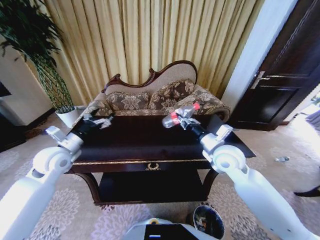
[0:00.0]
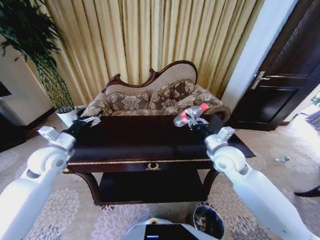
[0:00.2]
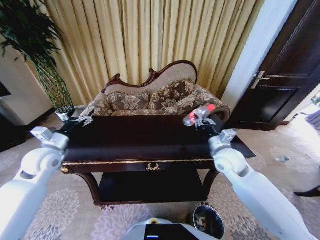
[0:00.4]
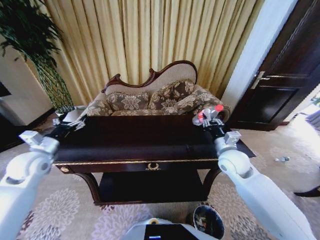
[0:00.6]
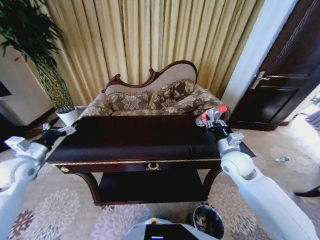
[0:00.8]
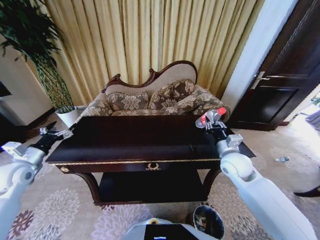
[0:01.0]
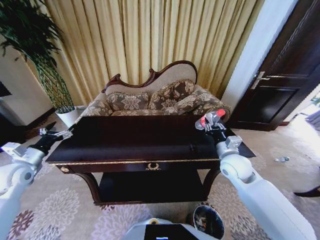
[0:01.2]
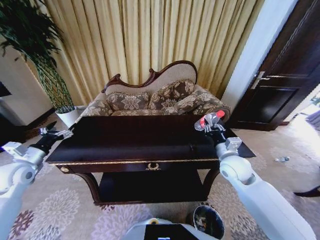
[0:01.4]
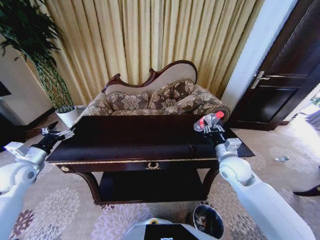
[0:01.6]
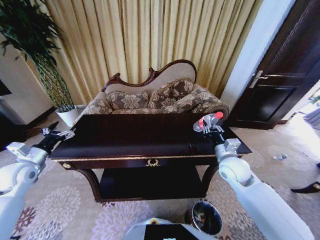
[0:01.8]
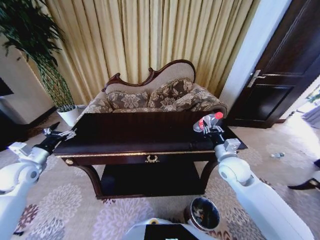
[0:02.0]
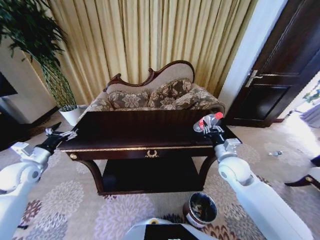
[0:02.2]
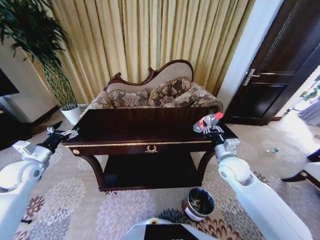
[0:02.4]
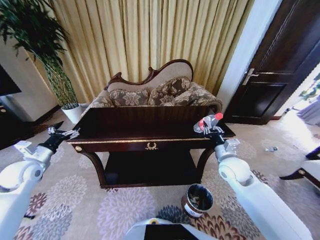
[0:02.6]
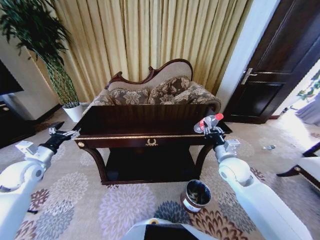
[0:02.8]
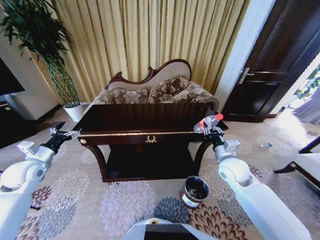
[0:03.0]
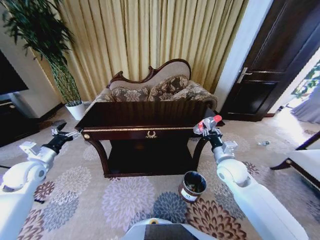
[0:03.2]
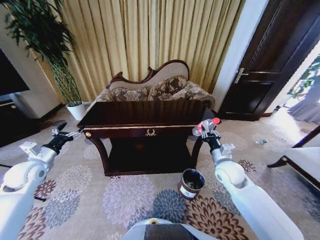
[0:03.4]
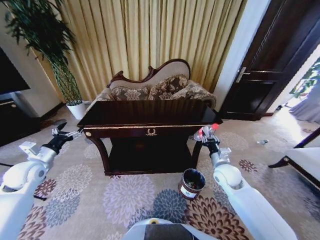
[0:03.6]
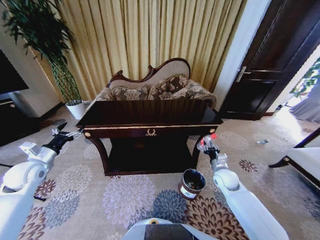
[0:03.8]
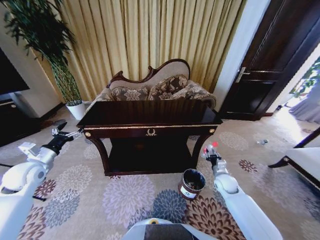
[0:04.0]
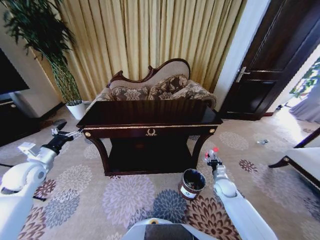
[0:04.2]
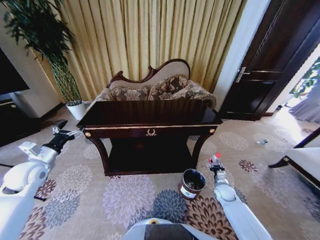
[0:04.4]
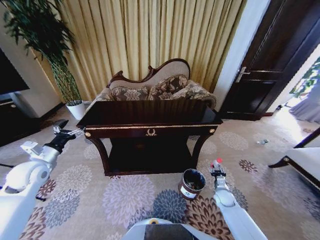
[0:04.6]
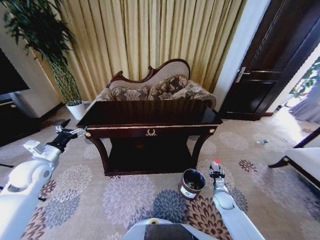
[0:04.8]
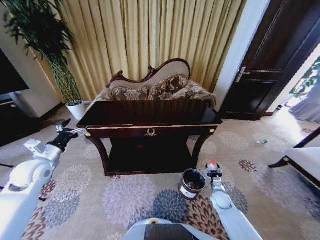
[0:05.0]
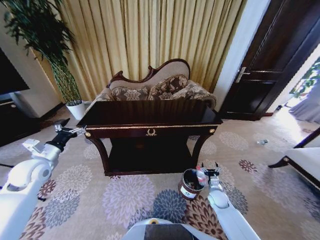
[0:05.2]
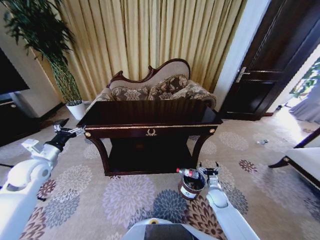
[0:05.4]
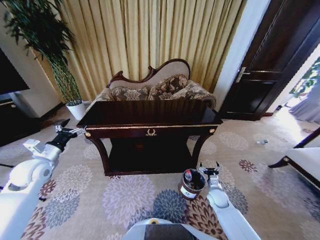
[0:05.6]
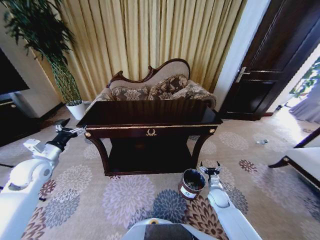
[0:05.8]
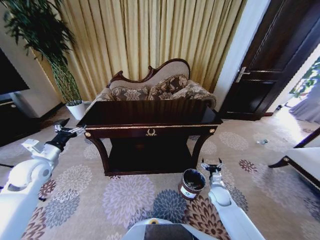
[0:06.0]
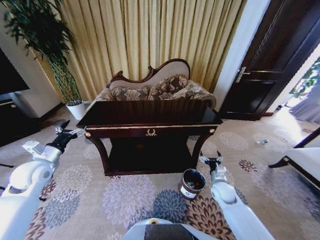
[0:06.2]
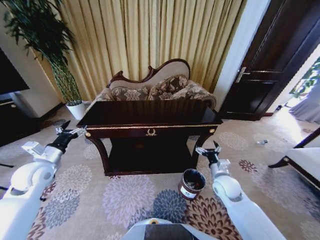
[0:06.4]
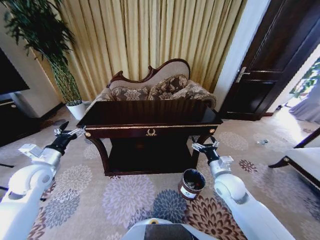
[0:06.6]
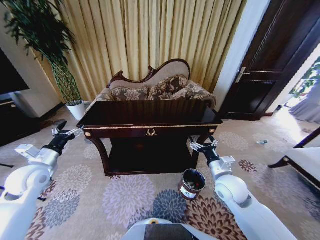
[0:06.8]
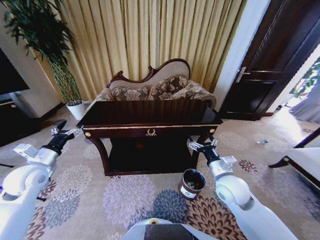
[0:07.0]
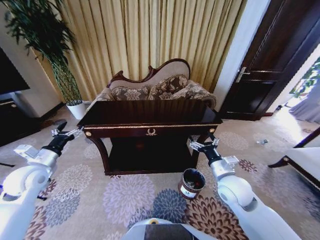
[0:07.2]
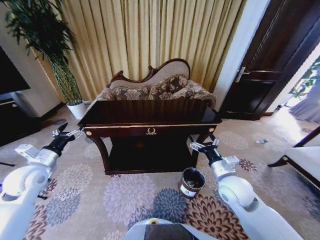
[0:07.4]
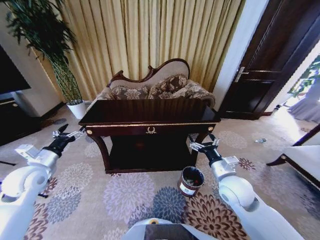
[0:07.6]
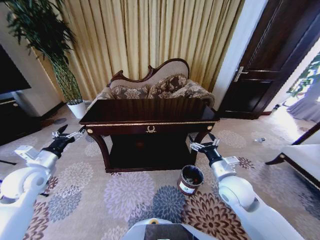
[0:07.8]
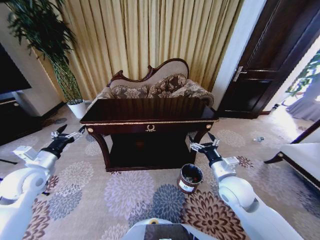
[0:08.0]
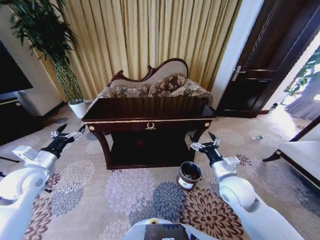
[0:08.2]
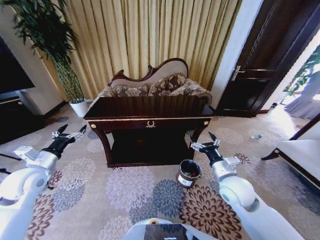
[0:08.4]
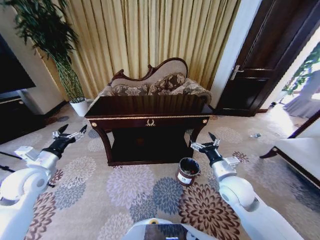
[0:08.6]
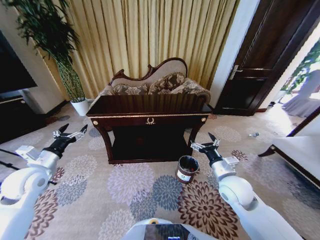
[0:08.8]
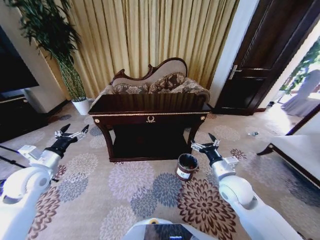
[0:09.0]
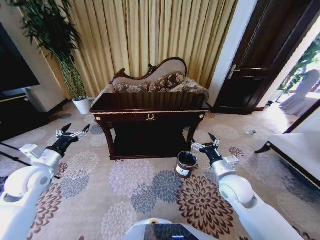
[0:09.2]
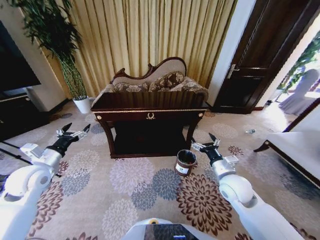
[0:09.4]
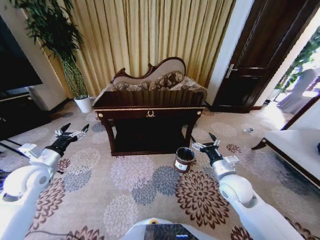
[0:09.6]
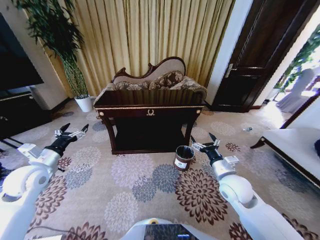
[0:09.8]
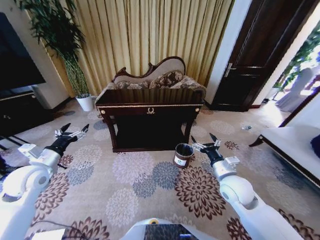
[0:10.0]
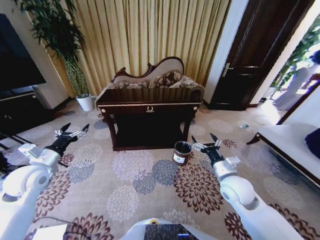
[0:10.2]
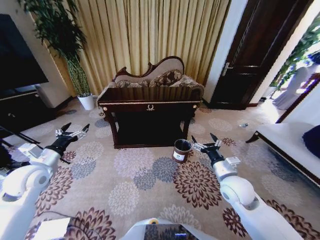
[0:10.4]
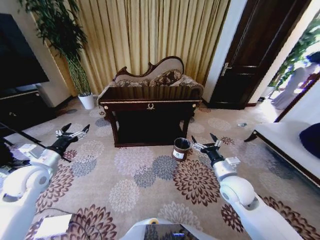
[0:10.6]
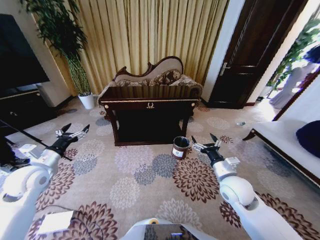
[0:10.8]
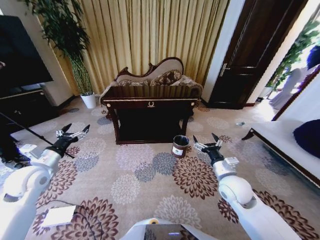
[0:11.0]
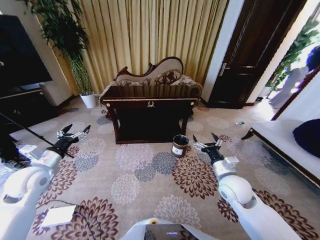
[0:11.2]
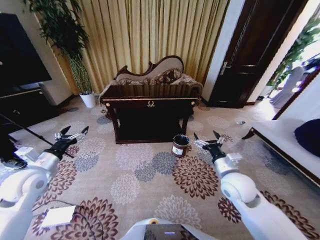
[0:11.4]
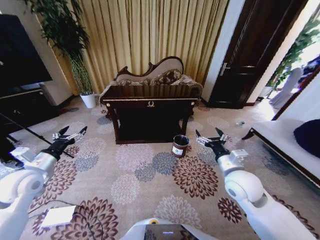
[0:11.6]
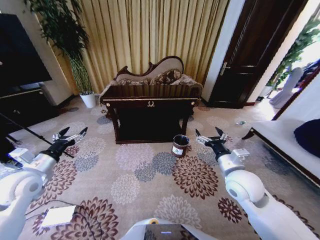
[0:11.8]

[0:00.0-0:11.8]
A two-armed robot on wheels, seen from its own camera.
Task of the whole recording: Move to the front of the table and place the trash on the table into the trash bin.
0:00.0 to 0:01.4: The left gripper heads to the left, covering some 15 cm. Meanwhile the right gripper travels downward by approximately 5 cm.
0:03.0 to 0:04.4: The right gripper moves downward, about 25 cm.
0:04.4 to 0:06.0: The right gripper shifts by about 5 cm, and opens.
0:06.0 to 0:07.4: The right gripper moves upward, some 25 cm.

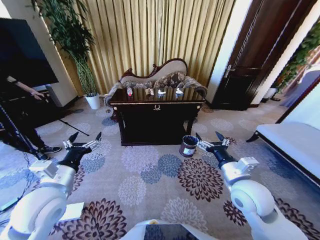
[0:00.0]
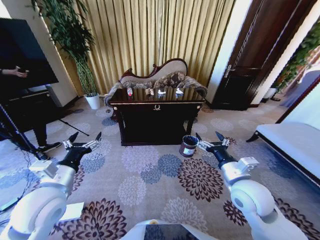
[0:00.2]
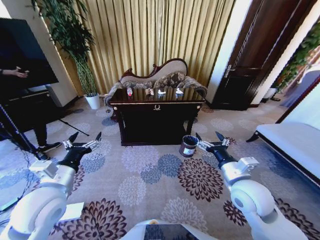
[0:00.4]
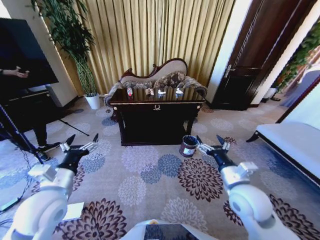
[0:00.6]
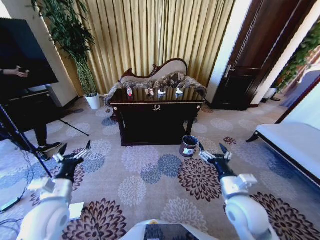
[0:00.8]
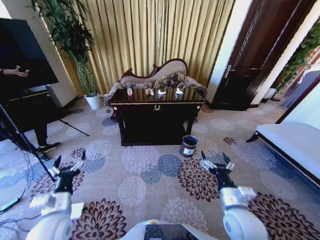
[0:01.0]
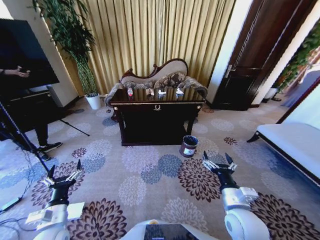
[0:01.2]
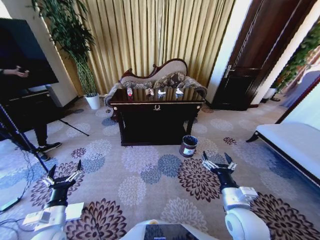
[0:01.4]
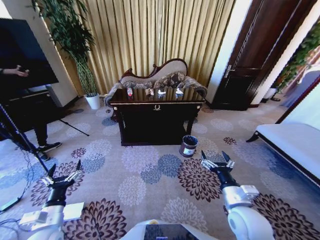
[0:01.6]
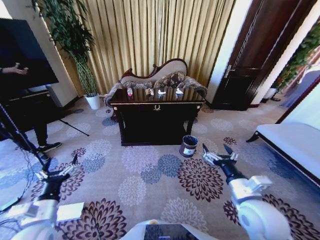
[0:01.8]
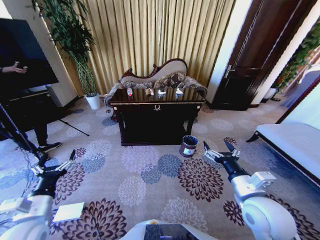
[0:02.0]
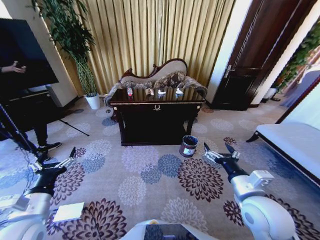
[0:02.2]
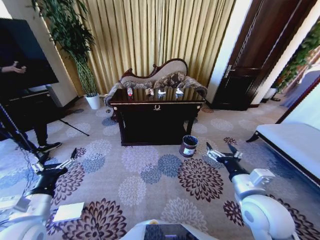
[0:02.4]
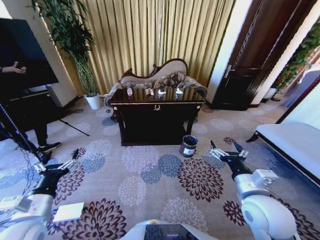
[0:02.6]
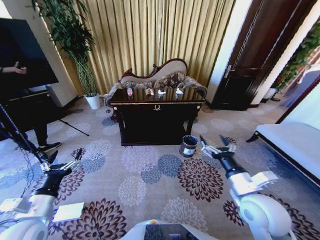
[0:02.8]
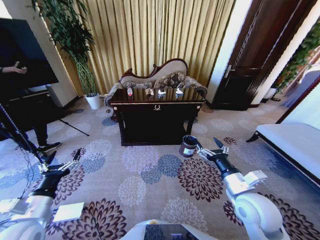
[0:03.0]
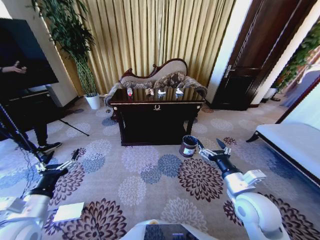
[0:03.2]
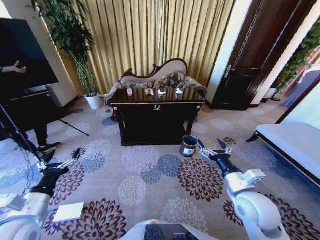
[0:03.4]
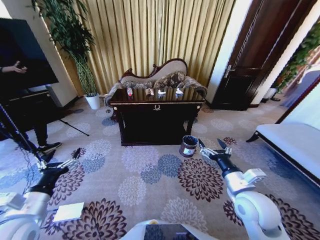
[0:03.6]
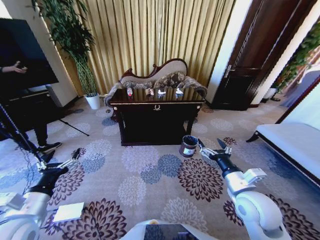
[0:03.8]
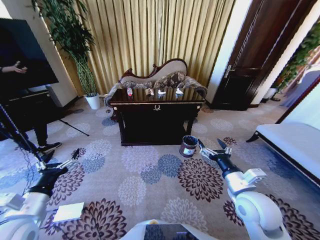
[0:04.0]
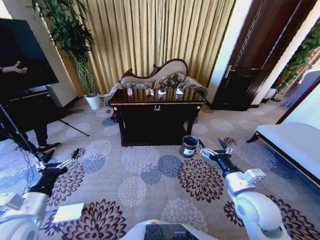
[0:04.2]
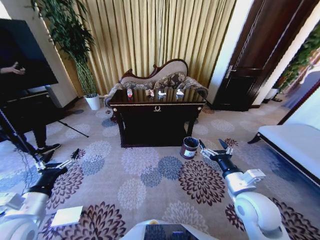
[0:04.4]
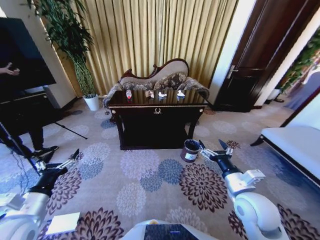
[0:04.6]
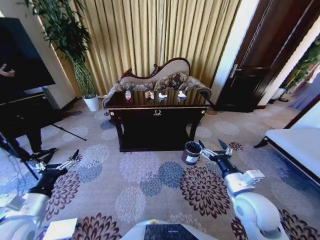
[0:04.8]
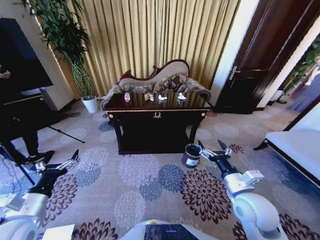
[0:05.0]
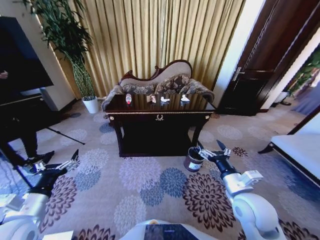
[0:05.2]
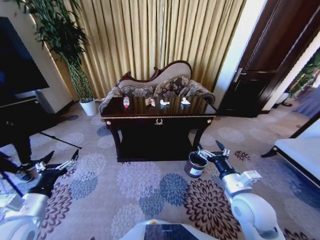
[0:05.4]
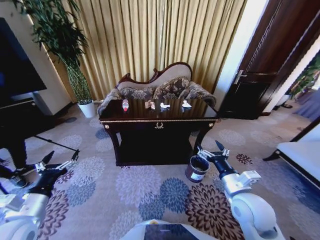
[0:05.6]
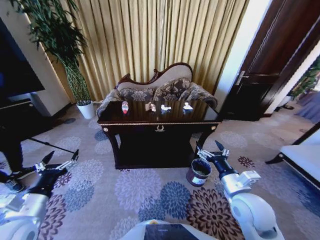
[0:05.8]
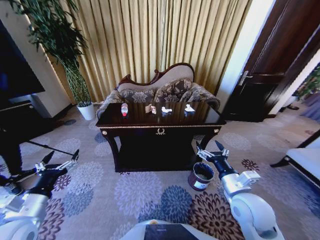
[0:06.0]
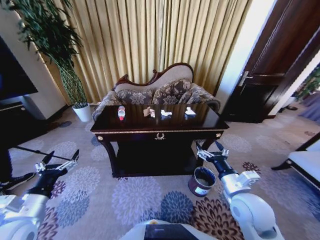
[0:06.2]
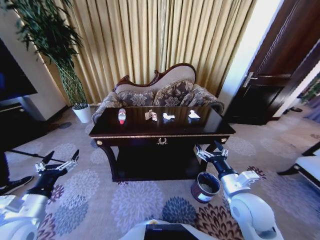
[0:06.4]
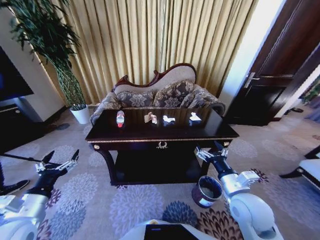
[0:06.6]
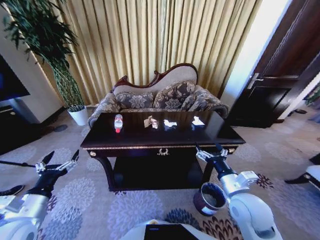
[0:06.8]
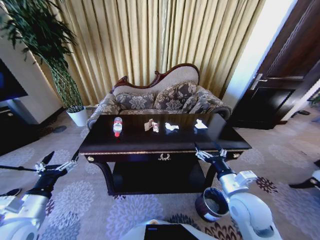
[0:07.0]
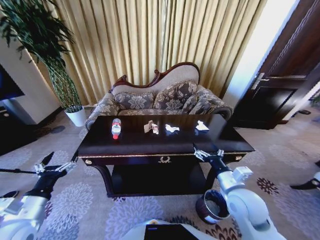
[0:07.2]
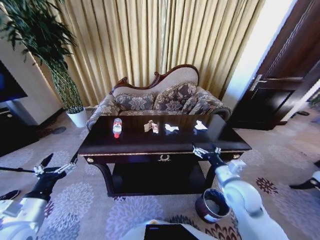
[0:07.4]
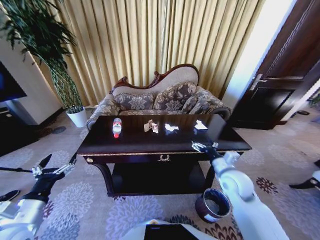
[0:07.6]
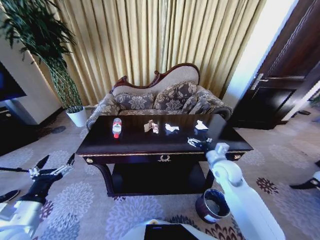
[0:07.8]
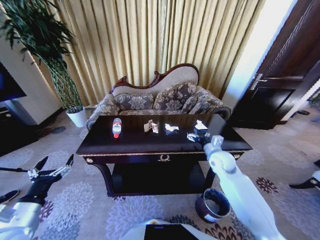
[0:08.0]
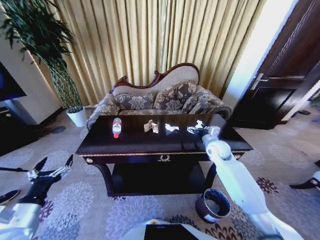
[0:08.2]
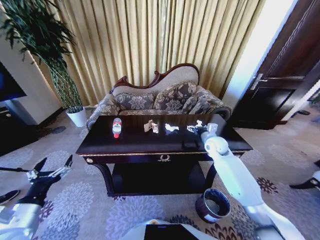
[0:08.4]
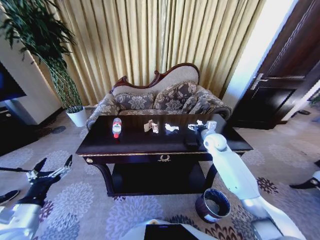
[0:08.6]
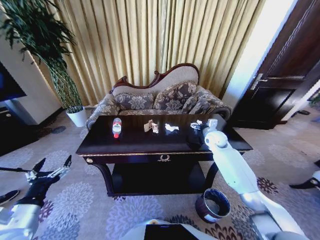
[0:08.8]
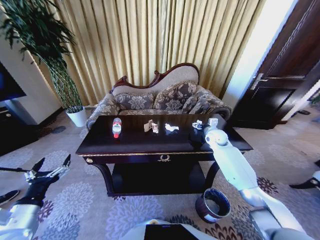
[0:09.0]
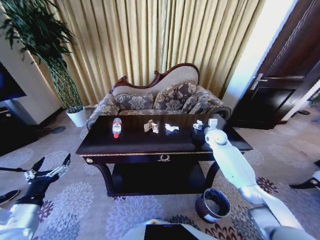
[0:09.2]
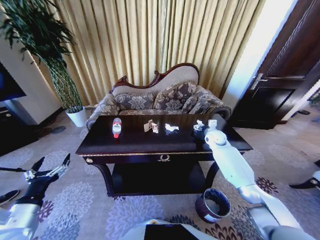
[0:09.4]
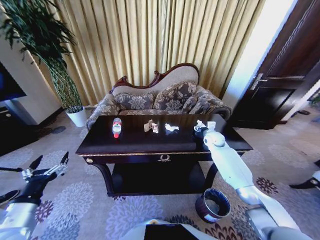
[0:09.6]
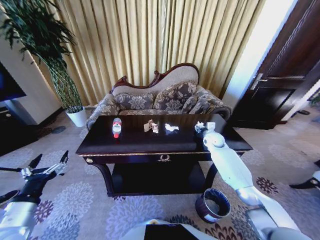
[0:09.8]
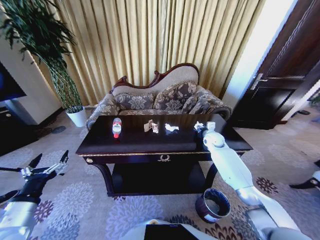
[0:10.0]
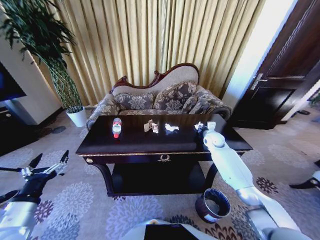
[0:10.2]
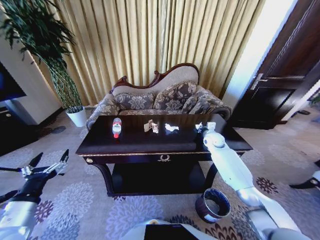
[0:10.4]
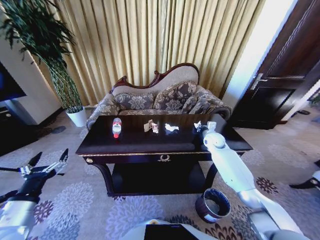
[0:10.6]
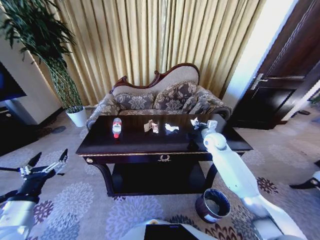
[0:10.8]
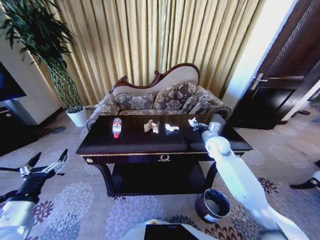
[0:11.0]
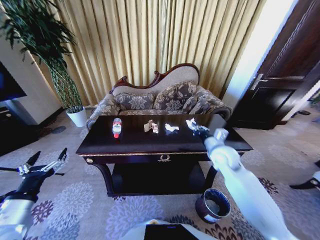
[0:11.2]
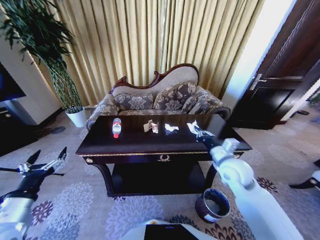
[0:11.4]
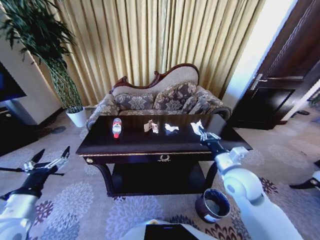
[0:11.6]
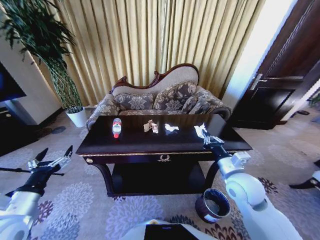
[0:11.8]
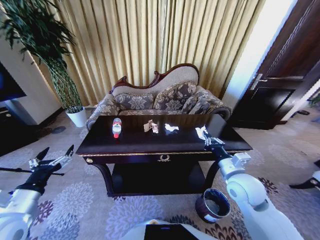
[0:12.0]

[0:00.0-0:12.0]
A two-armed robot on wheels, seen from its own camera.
Task of the whole recording: Move to the front of the table and place the trash on the table into the trash bin.
0:01.6 to 0:03.0: The left gripper shifts some 10 cm upward. The right gripper ends up about 5 cm from where it was.
0:03.0 to 0:04.4: The grippers stay close to where they were, moving slightly.
0:06.0 to 0:07.6: The right gripper travels forward by approximately 10 cm.
0:07.6 to 0:09.0: The right gripper travels forward by about 20 cm.
0:09.0 to 0:10.4: The right gripper closes its fingers.
0:10.4 to 0:12.0: The right gripper heads backward, covering roughly 25 cm.
